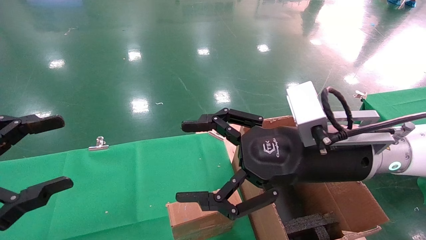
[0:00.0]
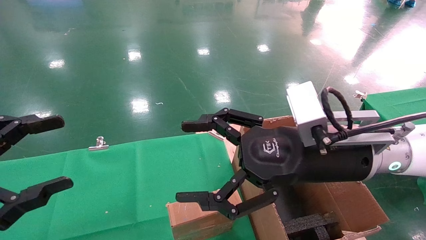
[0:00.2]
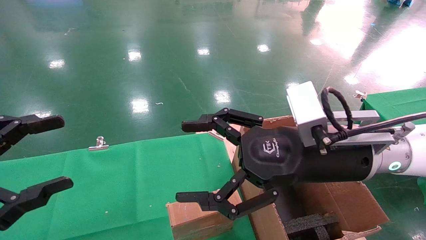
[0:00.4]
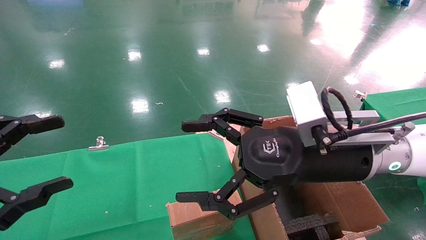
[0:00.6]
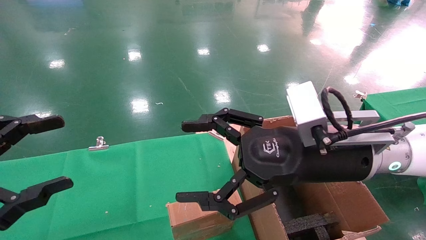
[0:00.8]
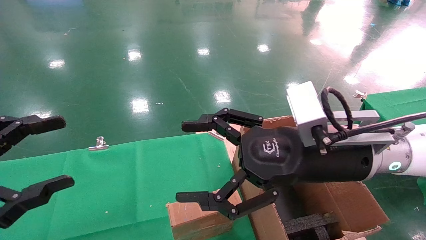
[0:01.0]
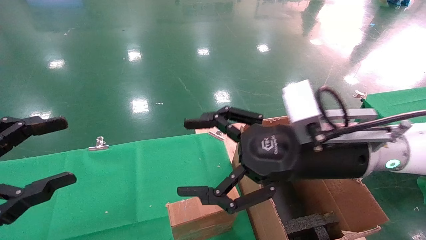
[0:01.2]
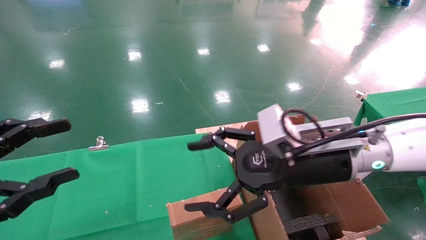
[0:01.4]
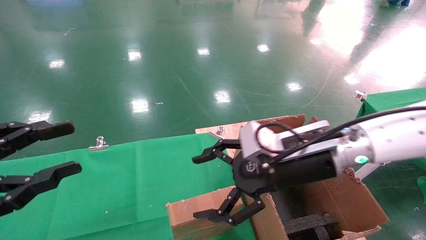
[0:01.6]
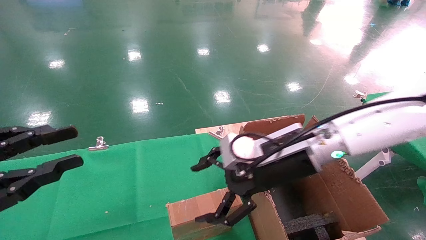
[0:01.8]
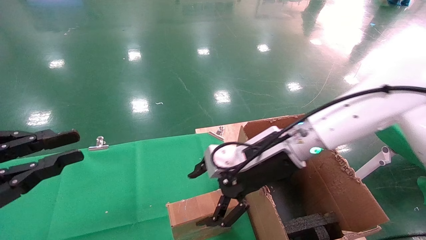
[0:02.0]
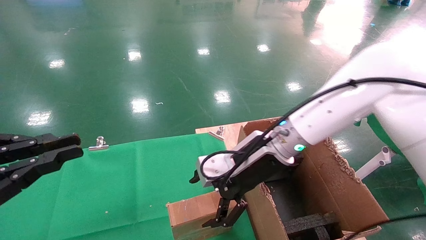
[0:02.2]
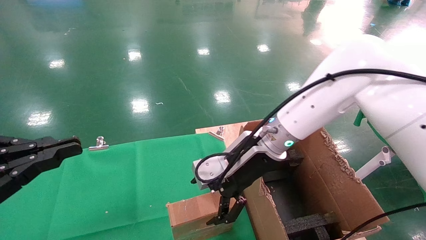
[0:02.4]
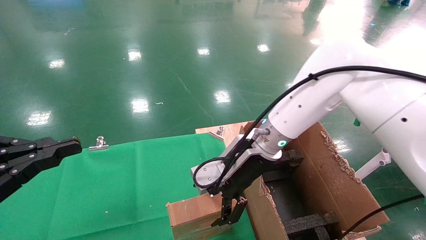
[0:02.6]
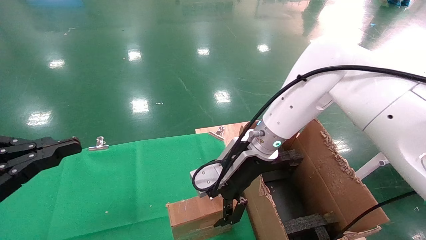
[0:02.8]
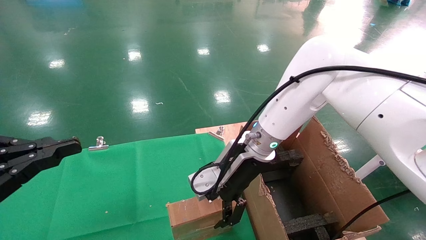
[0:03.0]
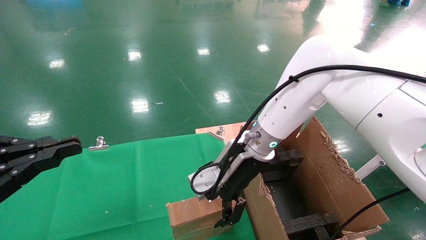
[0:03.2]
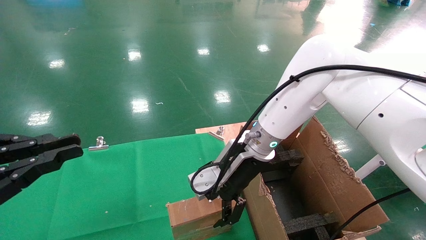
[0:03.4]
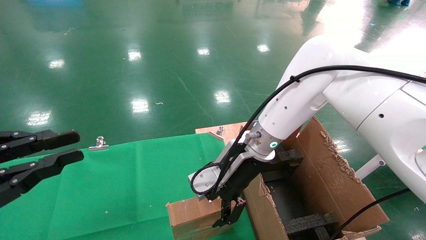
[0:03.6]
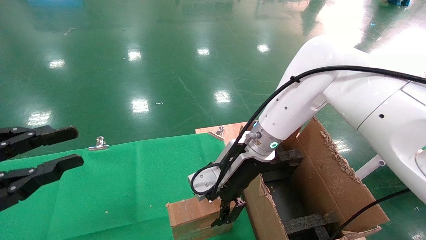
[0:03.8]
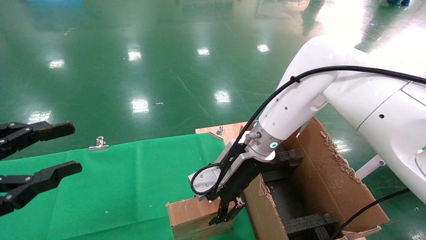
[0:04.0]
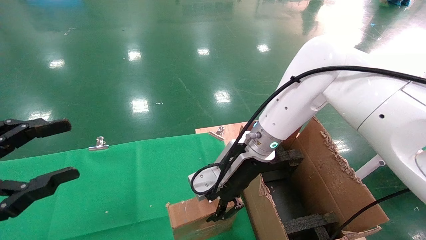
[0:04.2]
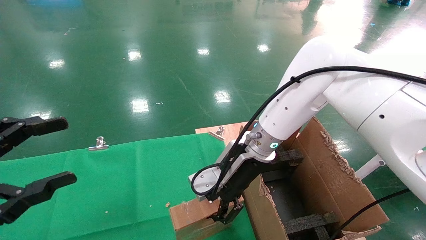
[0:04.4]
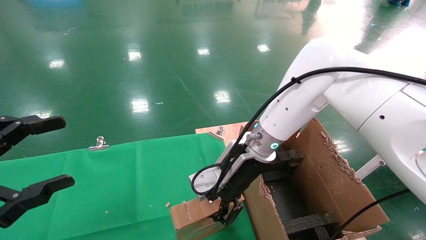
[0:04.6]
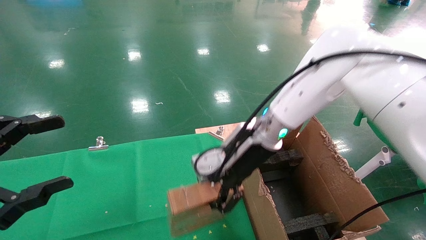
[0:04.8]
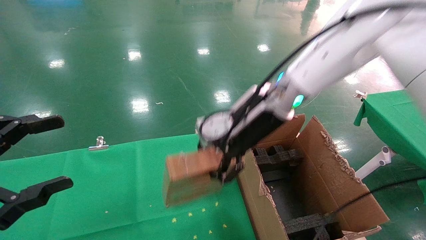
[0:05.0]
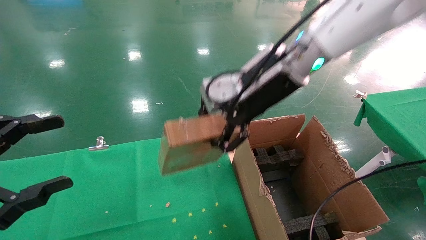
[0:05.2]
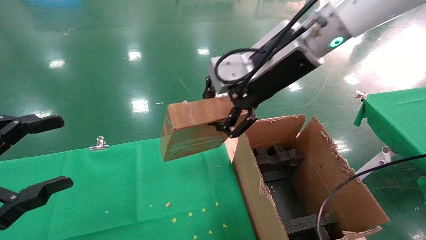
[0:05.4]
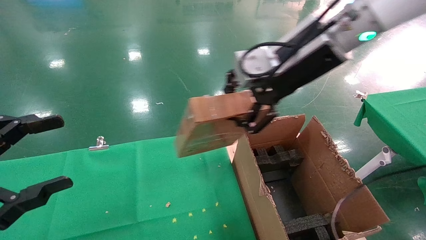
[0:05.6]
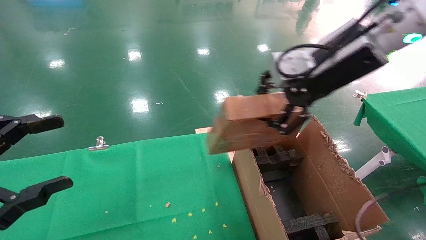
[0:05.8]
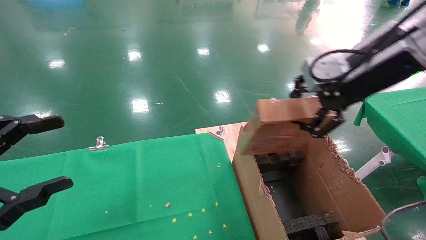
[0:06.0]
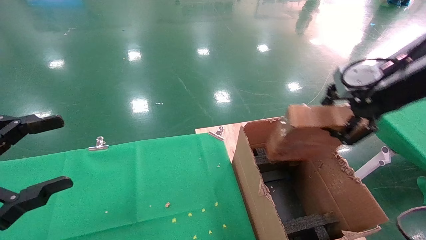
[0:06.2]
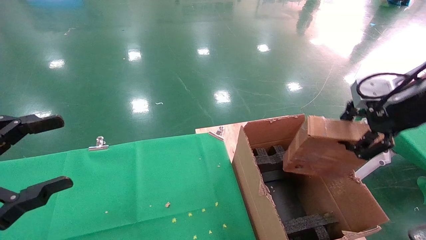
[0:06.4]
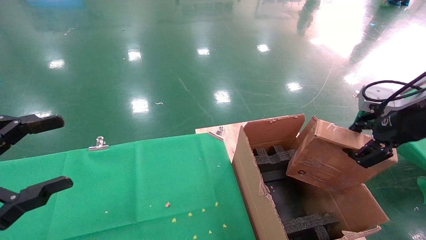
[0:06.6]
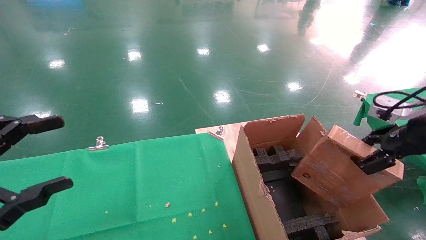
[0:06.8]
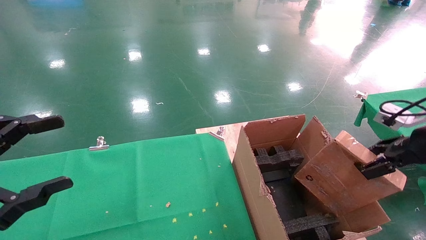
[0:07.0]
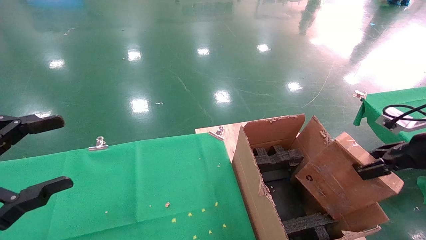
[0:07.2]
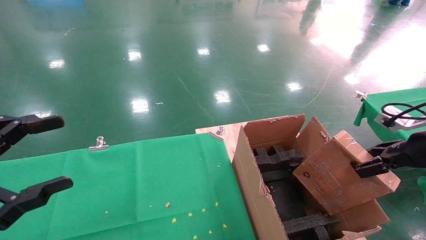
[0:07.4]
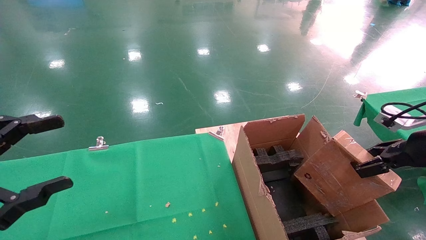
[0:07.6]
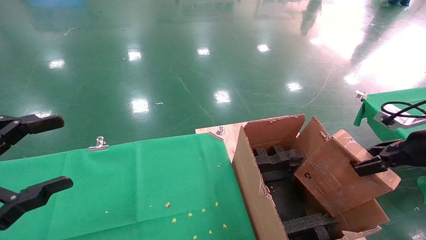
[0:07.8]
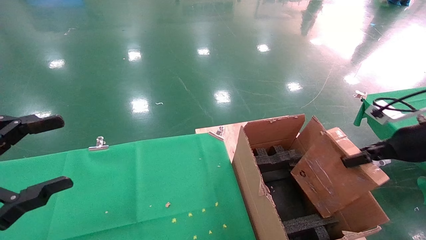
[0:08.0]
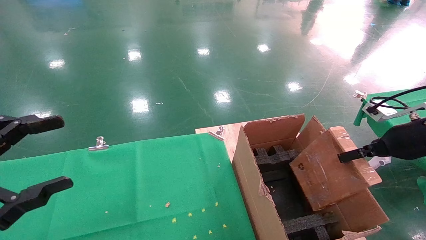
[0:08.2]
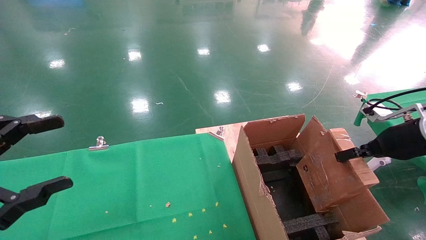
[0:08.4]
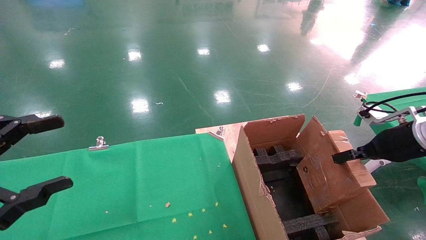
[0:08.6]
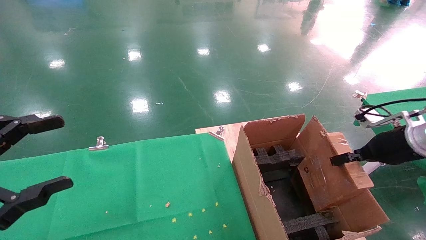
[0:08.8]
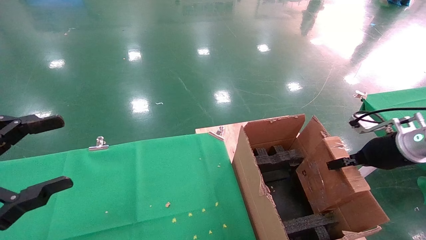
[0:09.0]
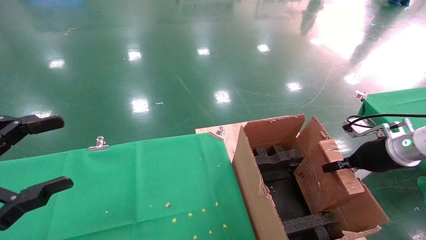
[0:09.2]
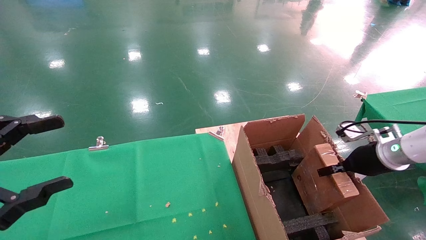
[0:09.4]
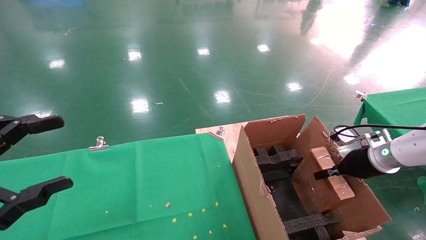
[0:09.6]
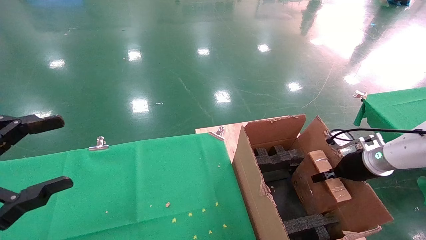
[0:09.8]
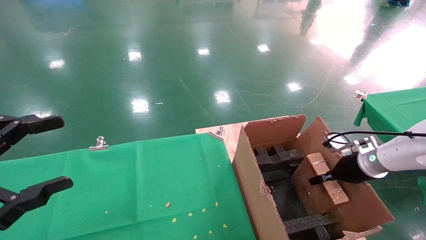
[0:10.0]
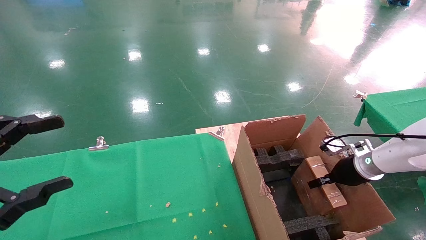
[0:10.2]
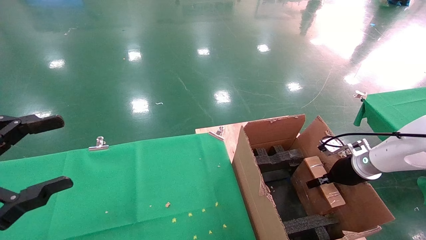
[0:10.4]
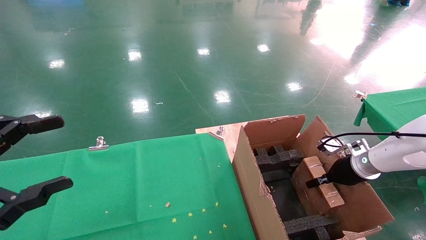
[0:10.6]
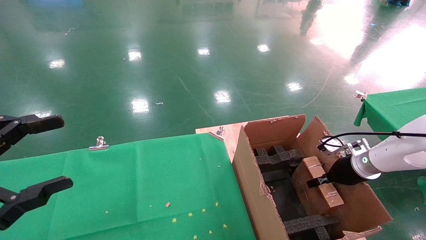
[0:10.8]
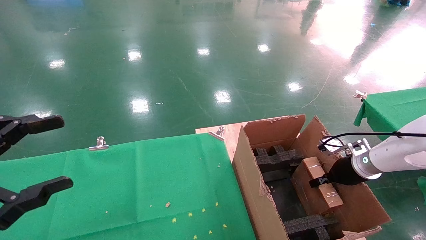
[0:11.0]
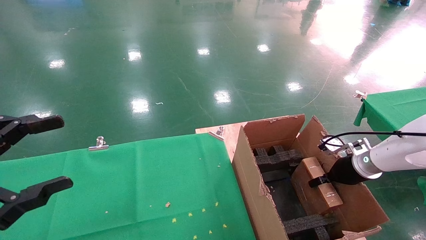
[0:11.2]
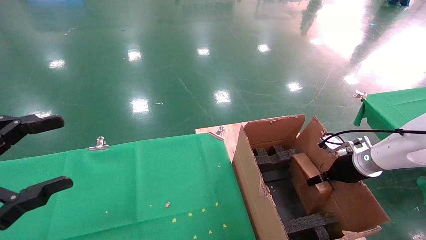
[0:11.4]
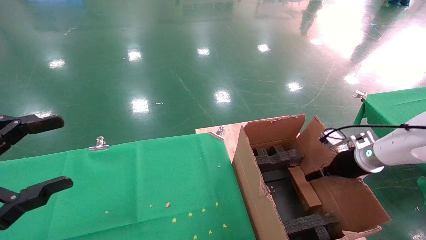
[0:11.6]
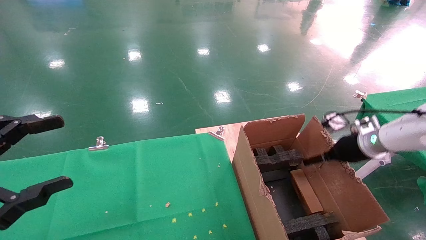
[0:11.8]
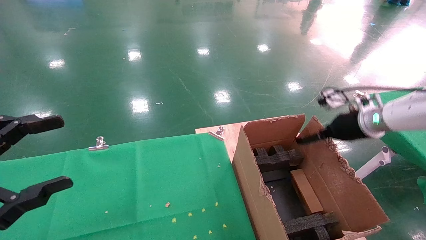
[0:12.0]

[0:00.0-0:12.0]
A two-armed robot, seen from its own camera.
Task of the whole recording: using a robotic arm to pick up a cardboard box and palace it the carton.
Step, 0:01.2 to 0:04.4: Pick up the mouse and the power cord paper box.
Step, 0:04.6 to 0:12.0: Place the mouse and the power cord paper box into the container.
0:01.6 to 0:03.0: The right gripper is displaced forward and to the left by roughly 10 cm. The left gripper closes.
0:03.0 to 0:04.4: The right gripper closes up. Meanwhile the left gripper opens up.
0:04.4 to 0:06.0: The right gripper travels upward, to the right and backward by some 25 cm.
0:06.0 to 0:07.6: The right gripper is displaced to the right and downward by some 25 cm.
0:07.6 to 0:09.0: The right gripper shifts some 5 cm forward.
0:09.0 to 0:10.4: The right gripper shifts about 10 cm downward and forward.
0:10.4 to 0:12.0: The right gripper is displaced upward by some 10 cm, and opens up.

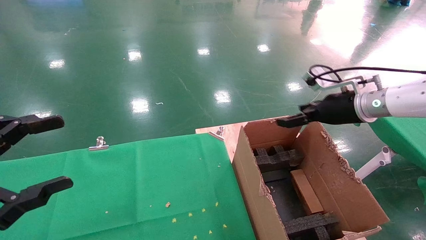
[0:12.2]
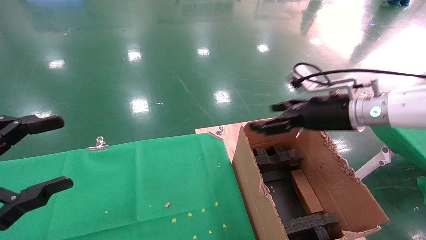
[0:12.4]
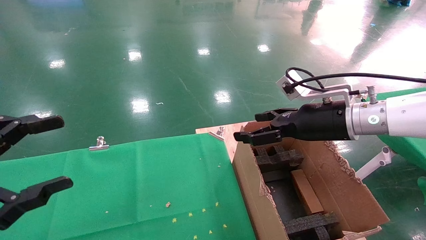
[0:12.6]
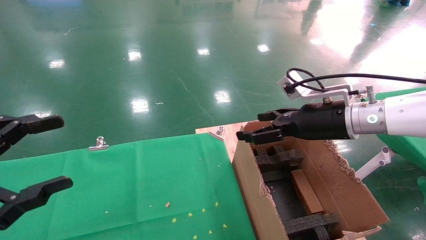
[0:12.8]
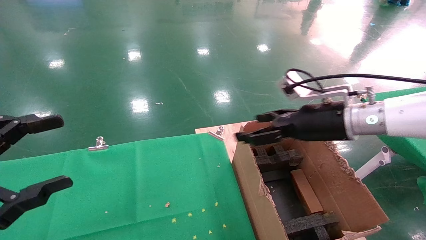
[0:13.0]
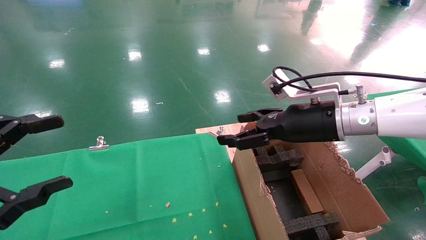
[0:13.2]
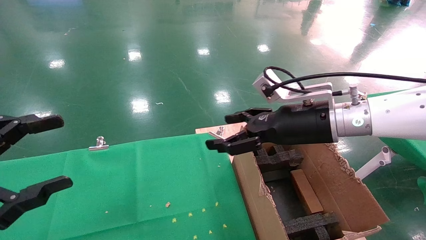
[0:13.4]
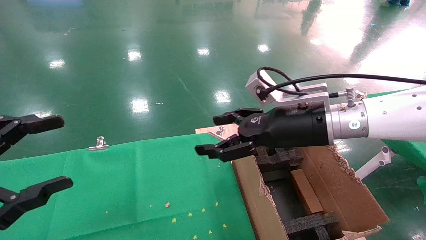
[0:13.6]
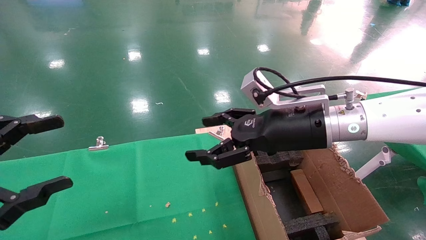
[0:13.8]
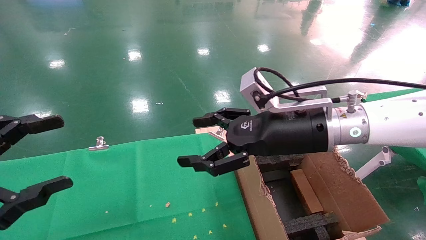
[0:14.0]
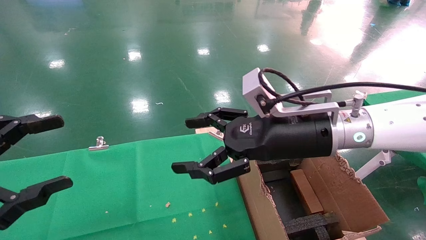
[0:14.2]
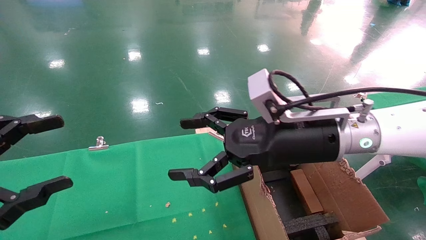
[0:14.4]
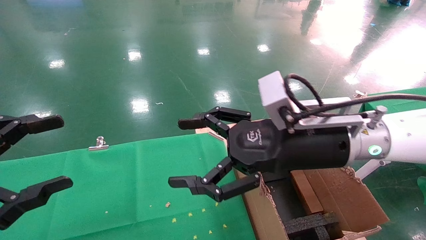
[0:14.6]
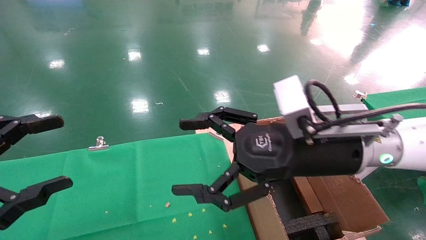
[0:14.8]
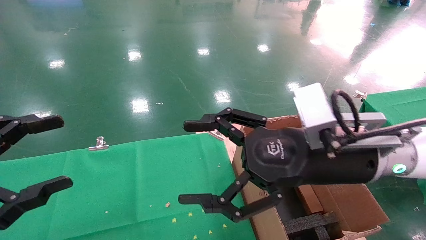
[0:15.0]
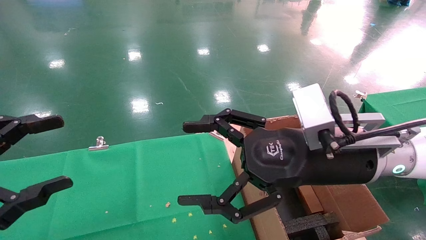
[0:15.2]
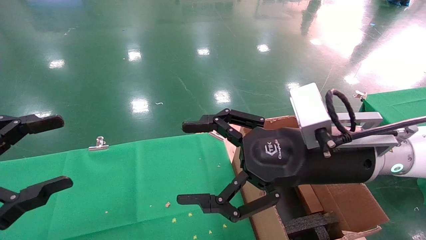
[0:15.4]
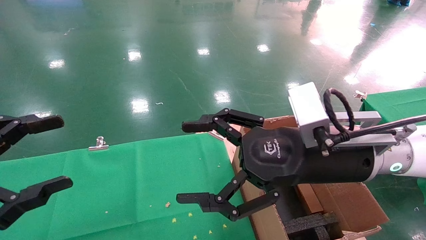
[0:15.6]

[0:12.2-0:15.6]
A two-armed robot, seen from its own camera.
Task of the whole recording: using a robotic arm to pick up a cardboard box and palace it the carton.
0:12.2 to 0:13.8: The right gripper moves to the left and backward, some 20 cm.
0:13.8 to 0:15.6: The right gripper goes approximately 5 cm backward.
